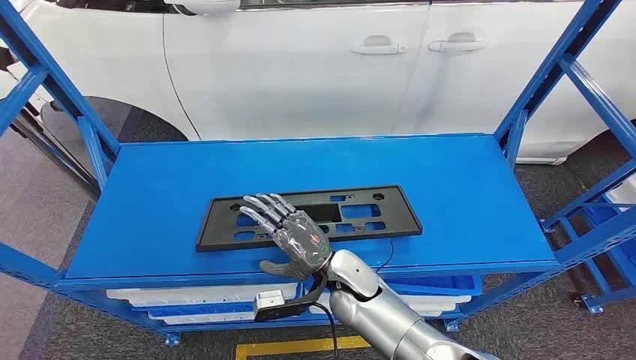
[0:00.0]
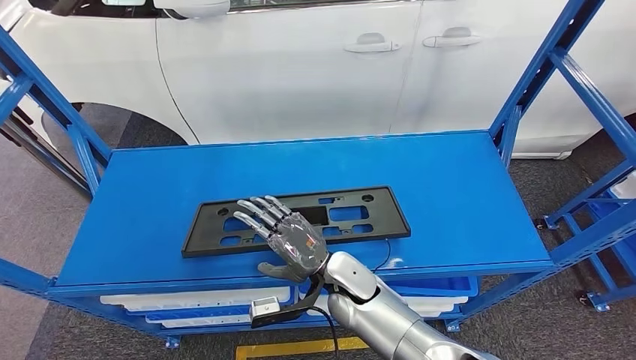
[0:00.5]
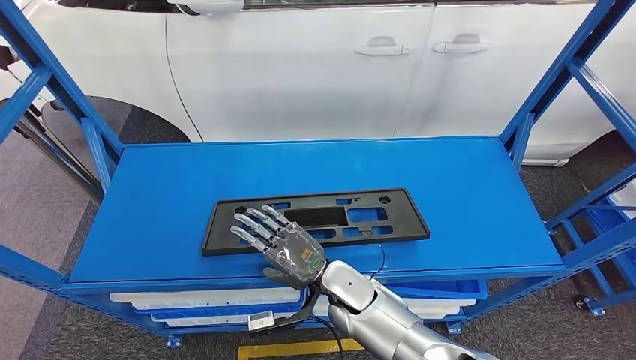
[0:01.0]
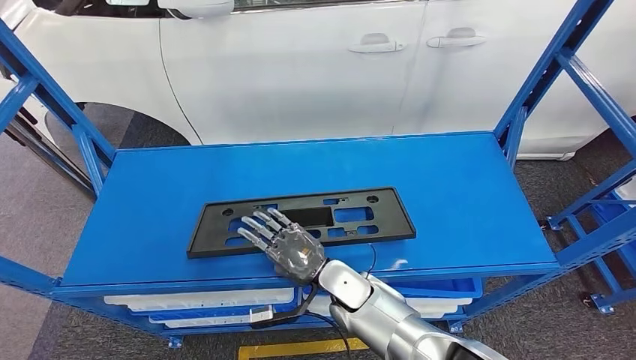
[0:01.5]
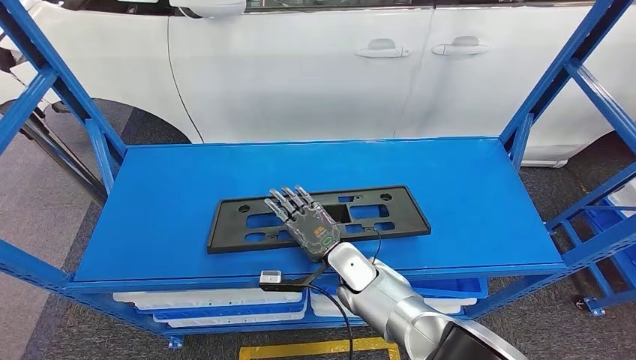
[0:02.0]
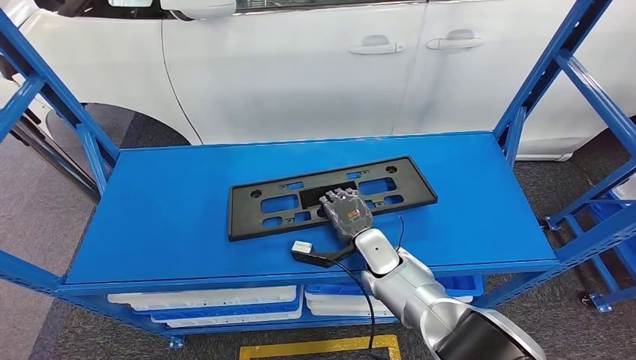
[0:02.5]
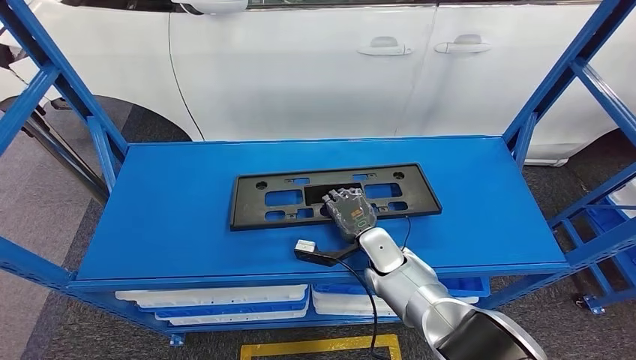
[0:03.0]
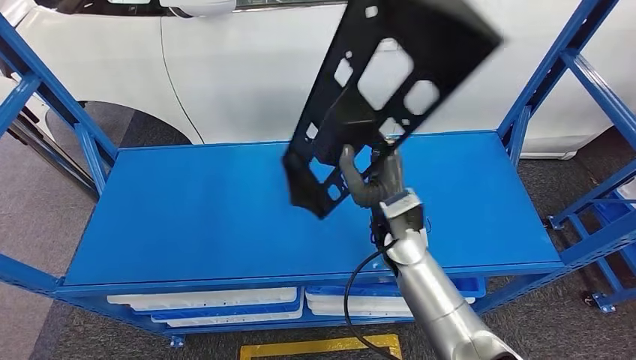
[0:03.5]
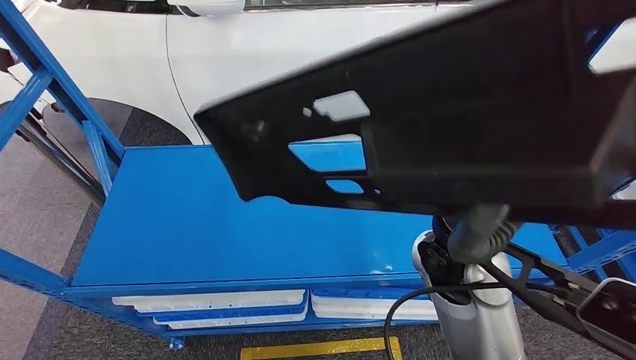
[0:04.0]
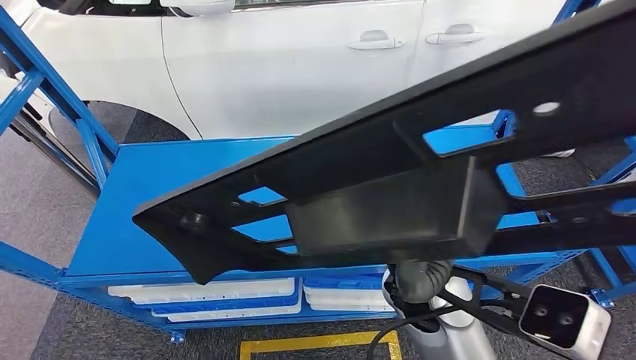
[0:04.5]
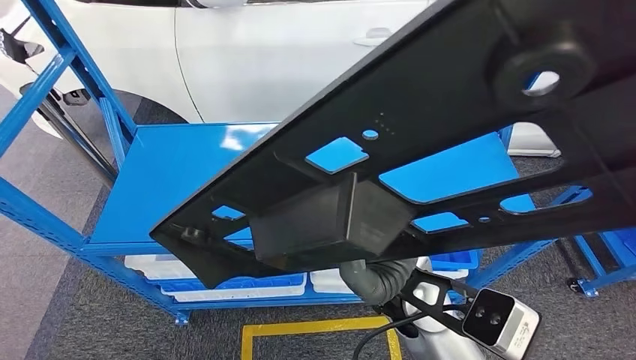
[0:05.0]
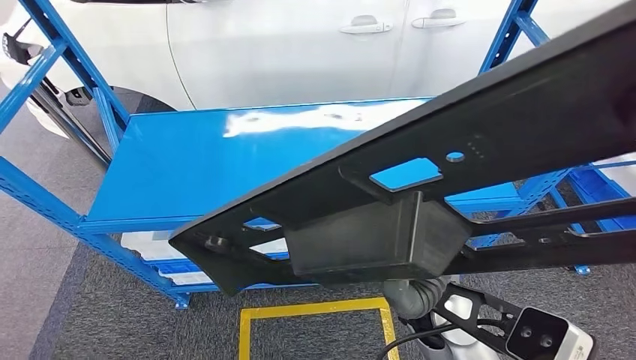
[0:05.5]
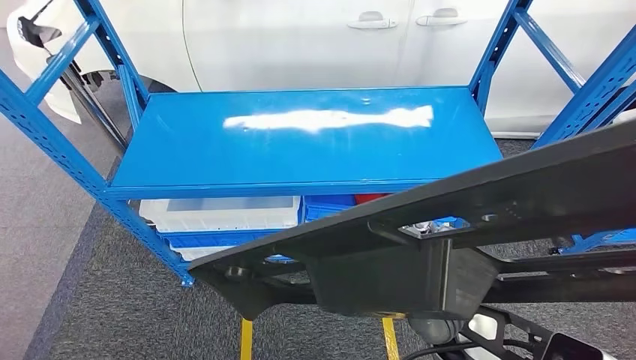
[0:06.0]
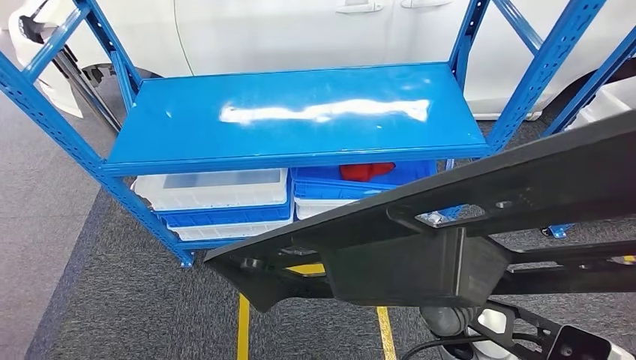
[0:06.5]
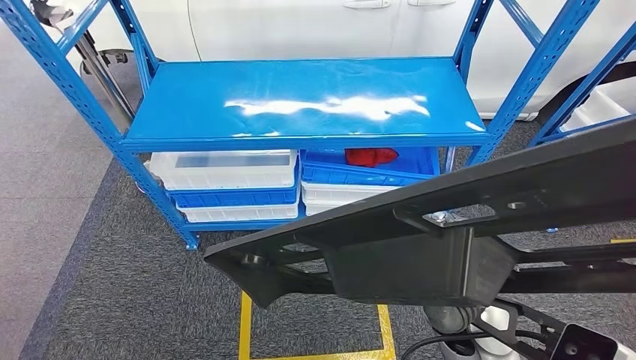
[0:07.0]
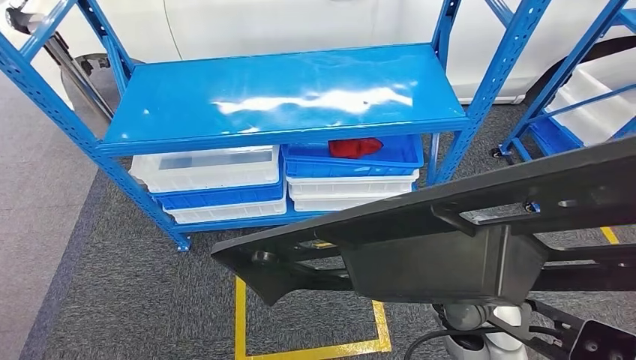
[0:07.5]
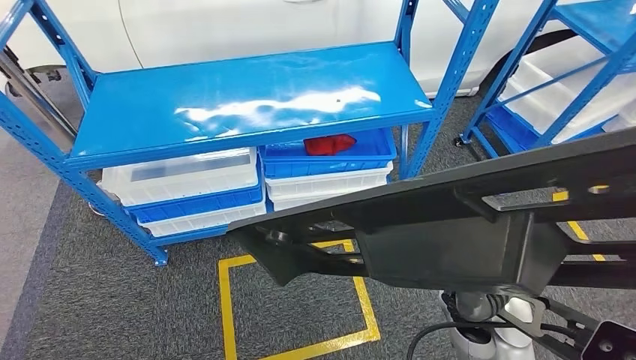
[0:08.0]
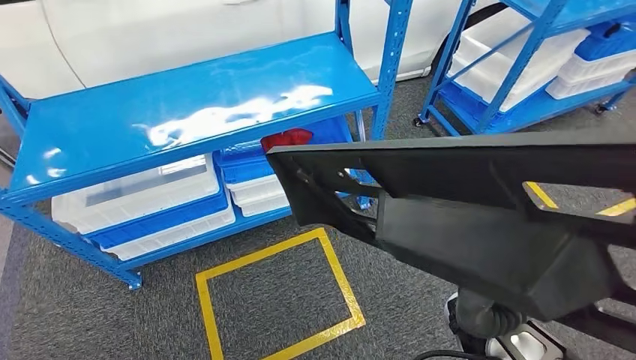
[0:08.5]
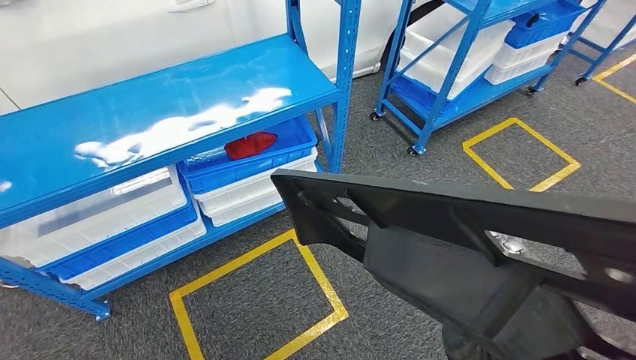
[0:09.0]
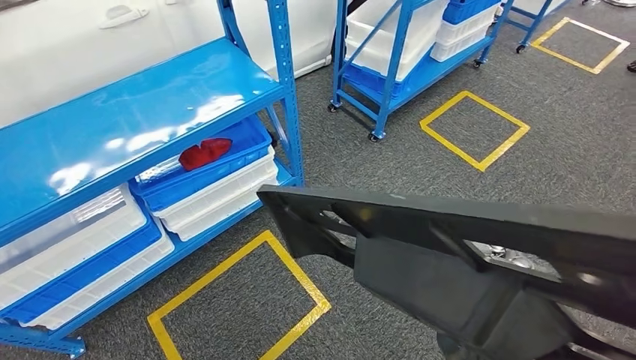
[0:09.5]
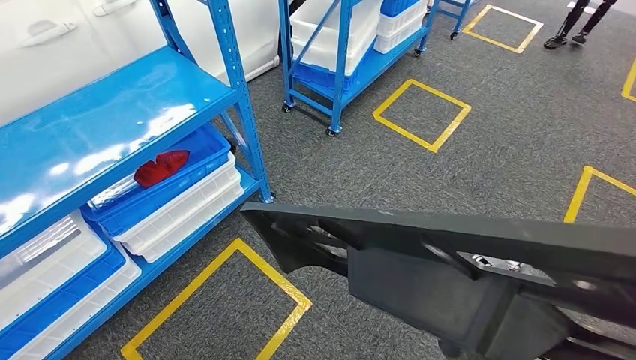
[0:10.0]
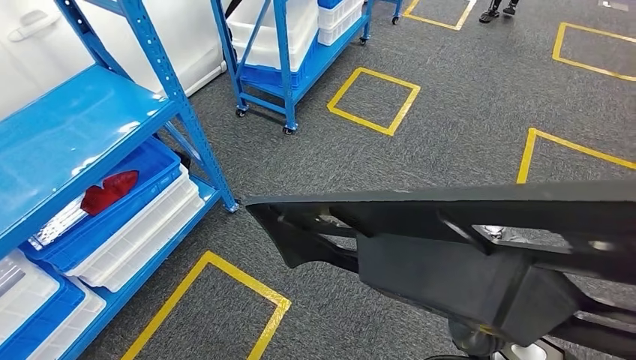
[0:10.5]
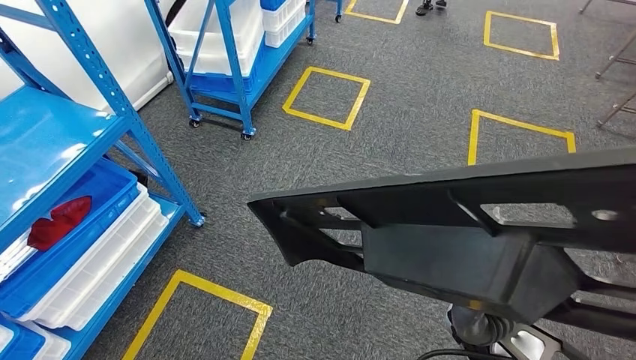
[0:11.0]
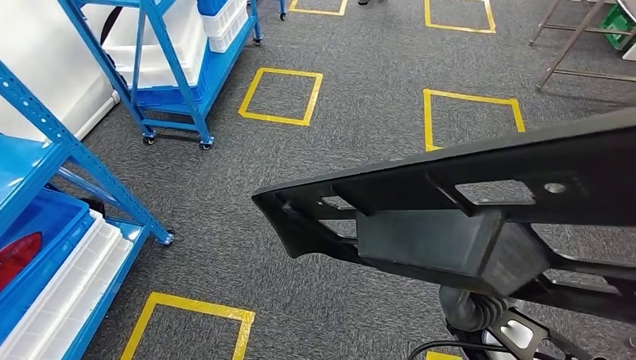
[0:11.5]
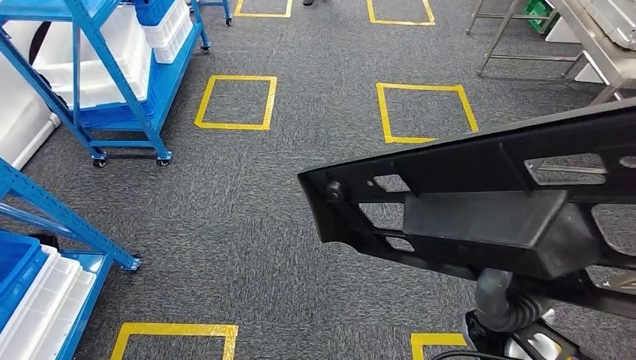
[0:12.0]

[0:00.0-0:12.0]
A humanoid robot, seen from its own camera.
Step, 0:00.0 to 0:05.0: Pick up the large material from the shelf.

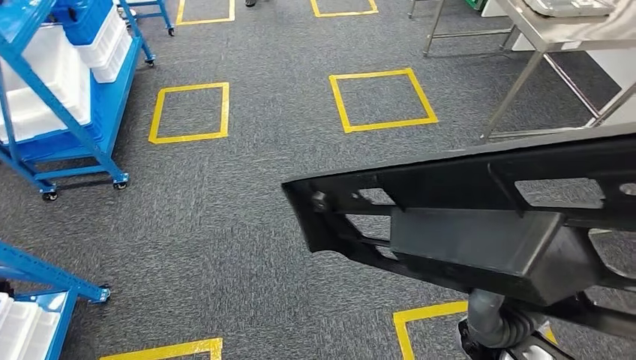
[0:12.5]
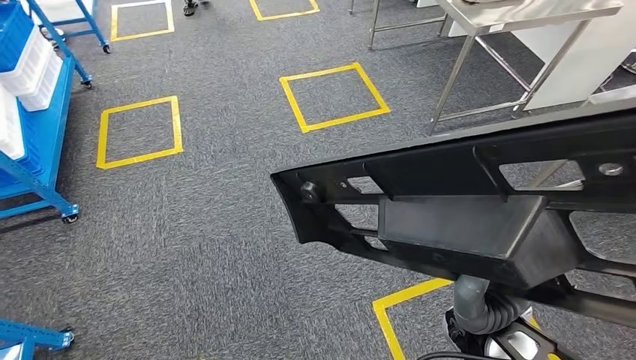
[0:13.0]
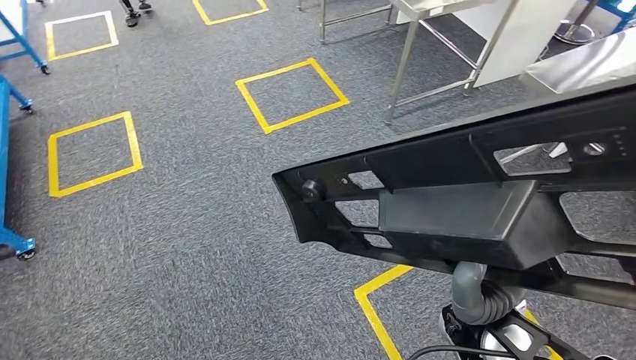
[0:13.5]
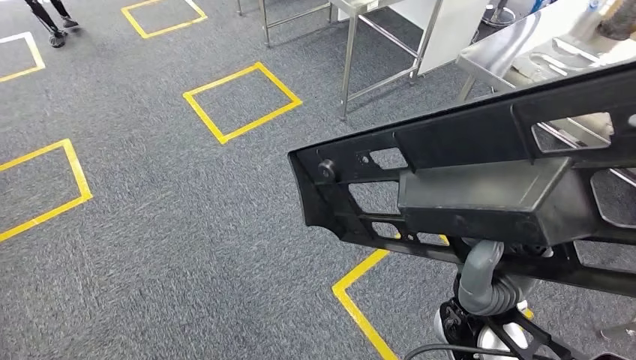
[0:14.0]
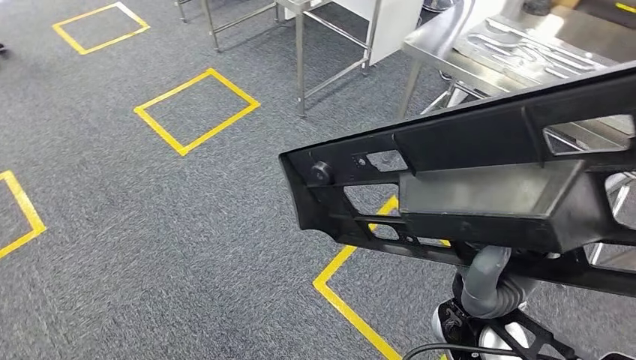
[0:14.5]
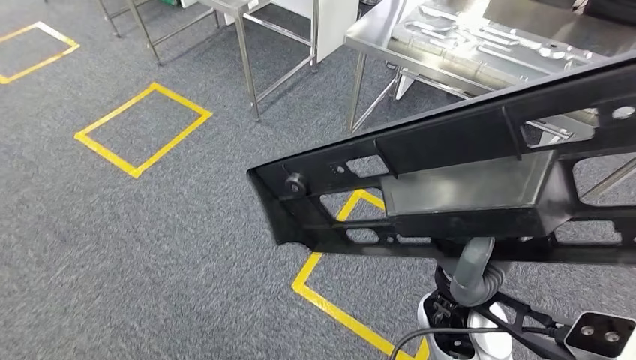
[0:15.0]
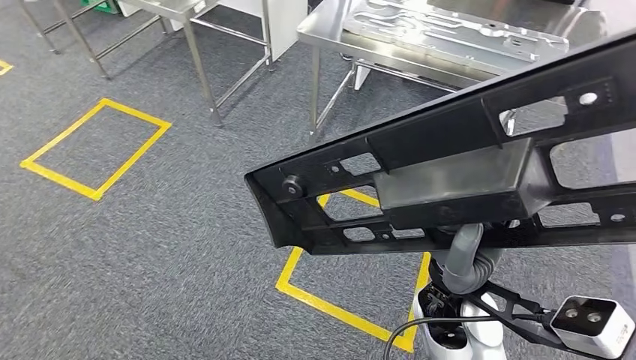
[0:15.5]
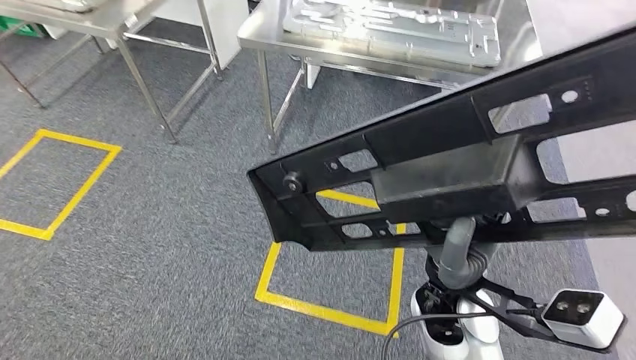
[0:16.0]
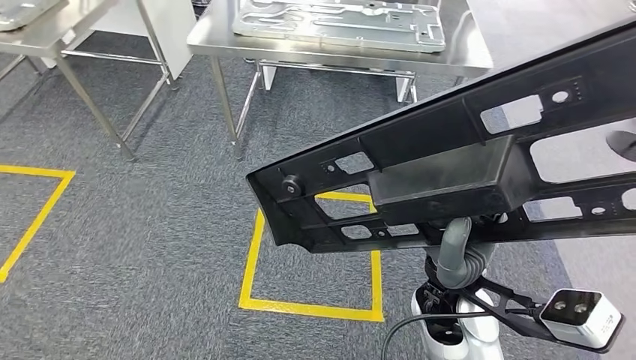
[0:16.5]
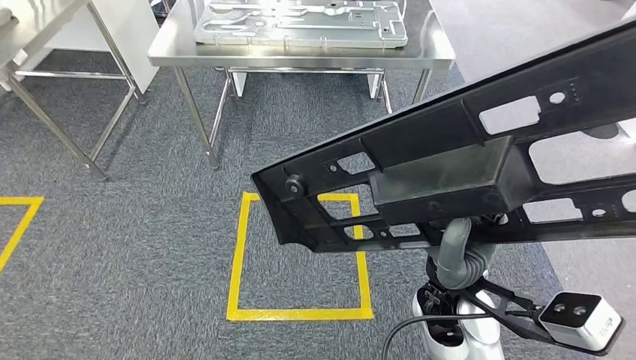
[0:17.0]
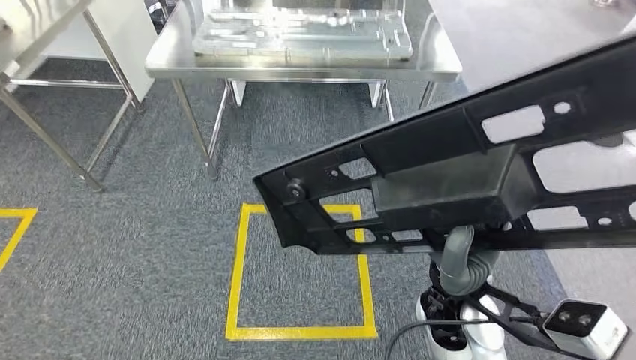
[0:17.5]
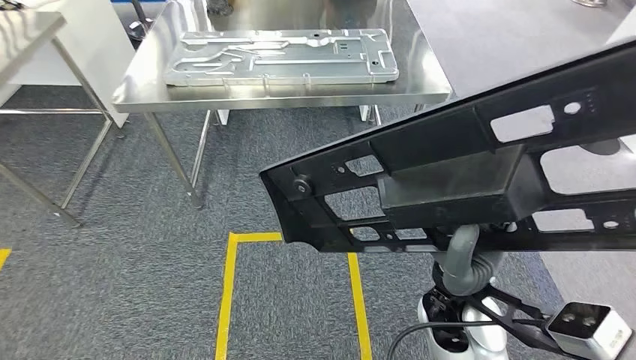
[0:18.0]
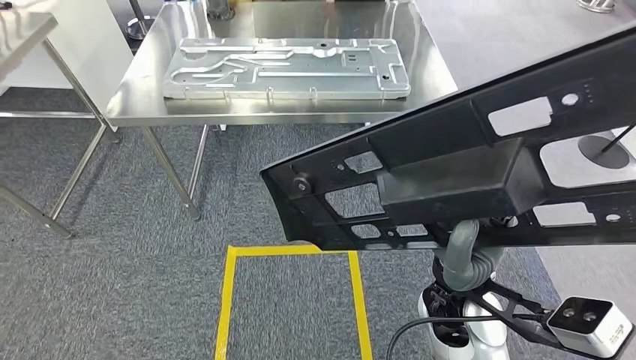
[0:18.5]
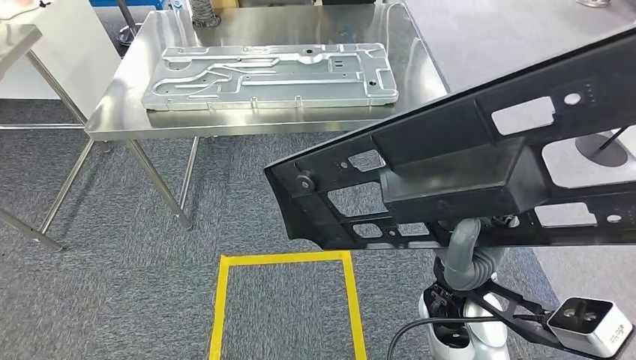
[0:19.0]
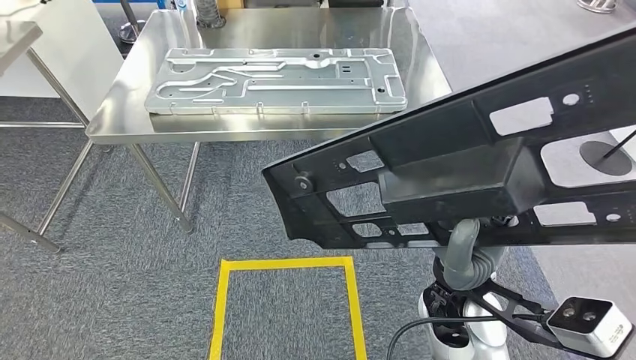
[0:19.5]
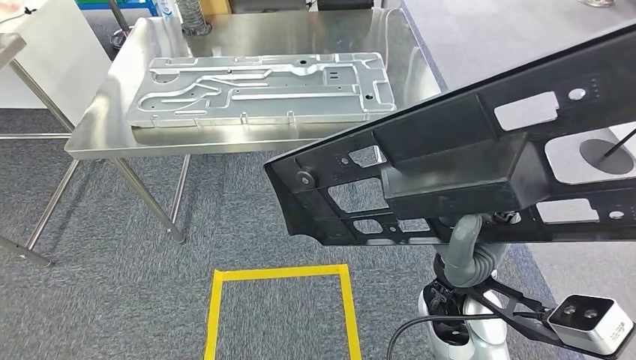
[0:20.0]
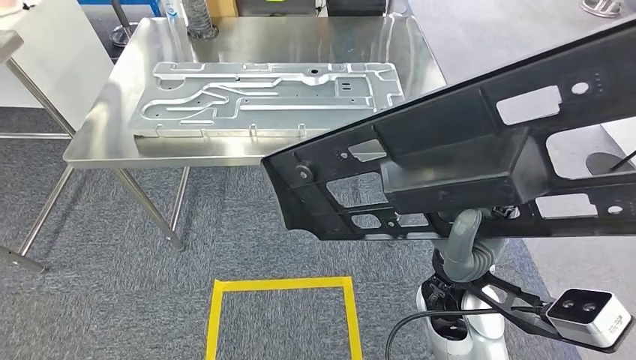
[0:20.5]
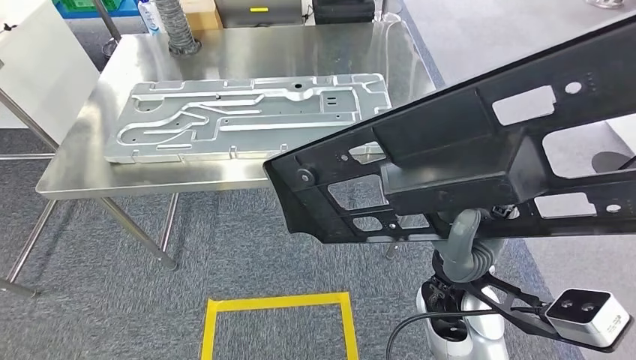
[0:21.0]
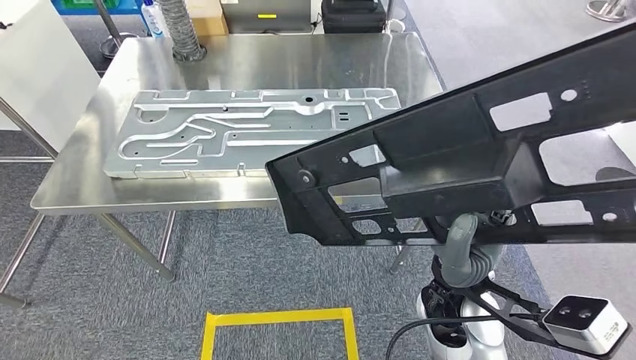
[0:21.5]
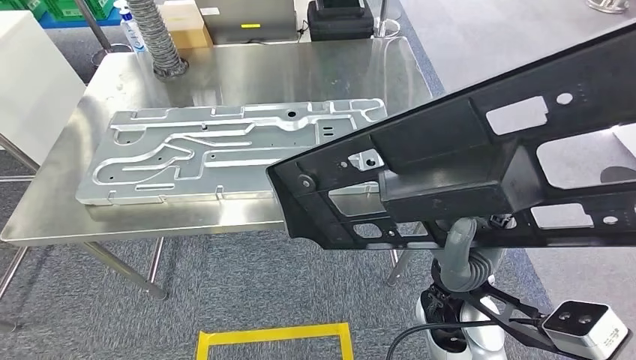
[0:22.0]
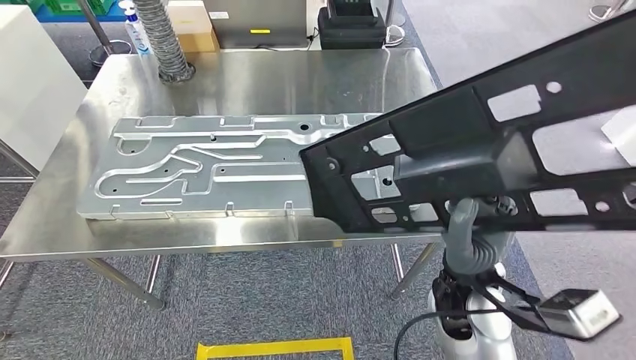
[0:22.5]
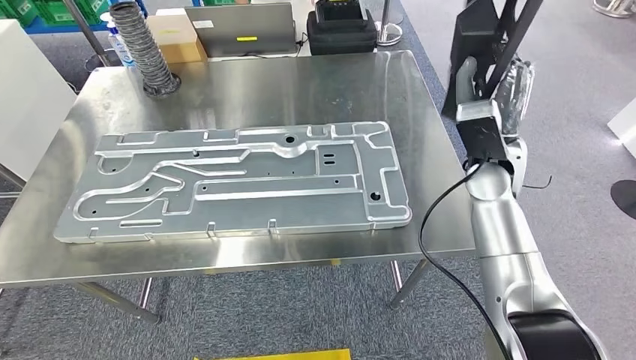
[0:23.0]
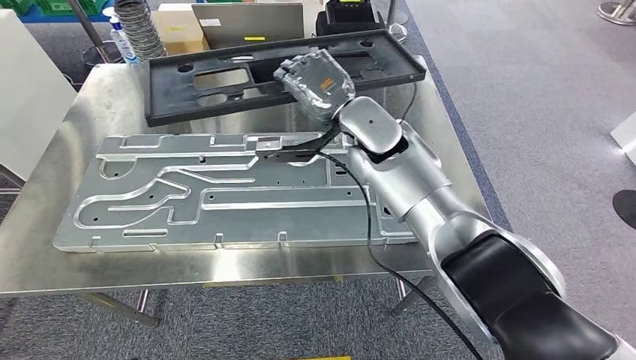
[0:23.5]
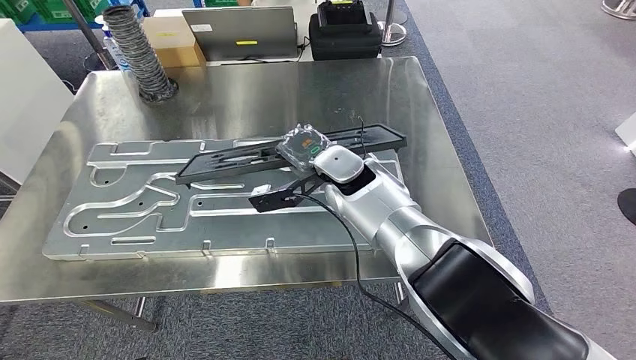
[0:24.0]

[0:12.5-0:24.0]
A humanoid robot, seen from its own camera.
Step, 0:12.5 to 0:20.5: Move the large material to the workbench.
